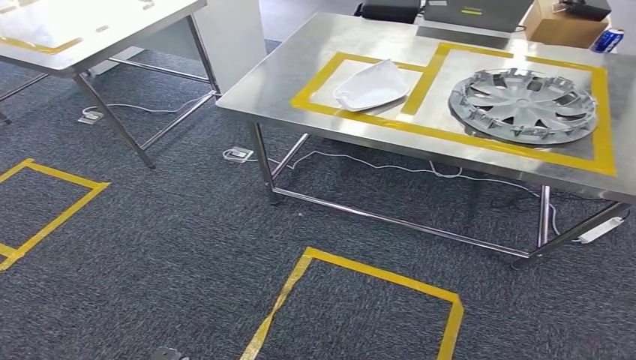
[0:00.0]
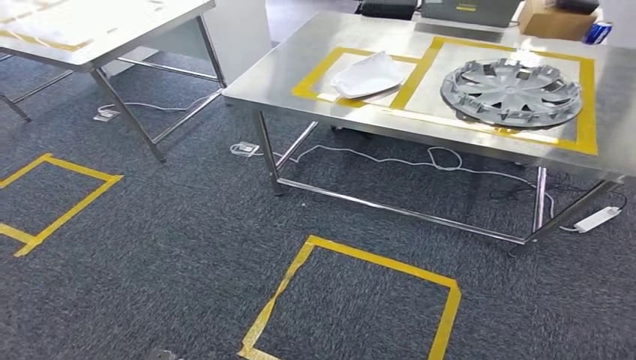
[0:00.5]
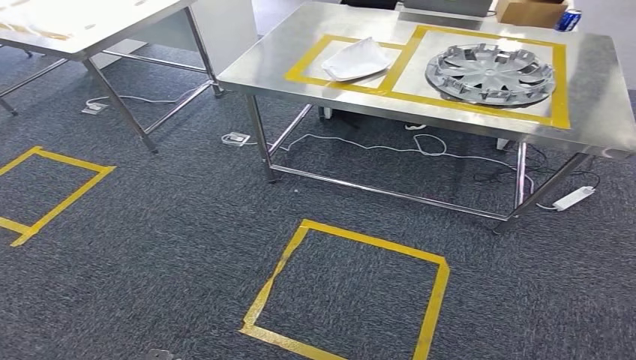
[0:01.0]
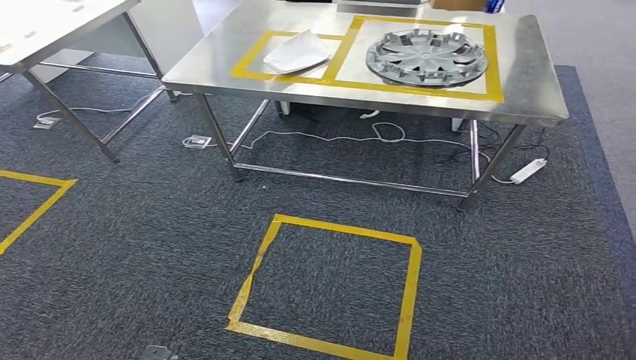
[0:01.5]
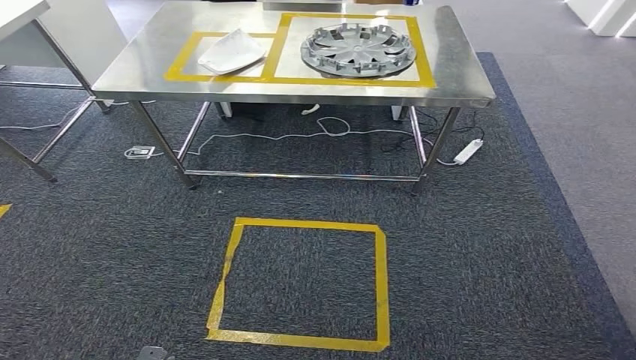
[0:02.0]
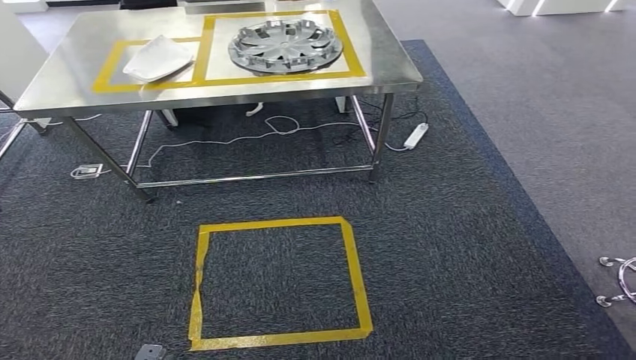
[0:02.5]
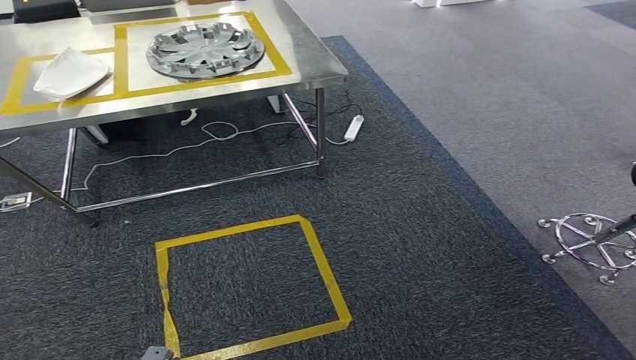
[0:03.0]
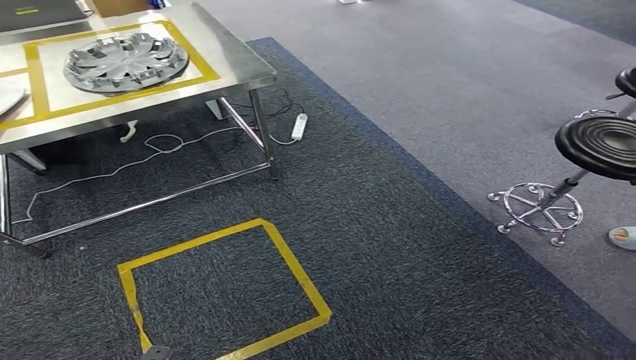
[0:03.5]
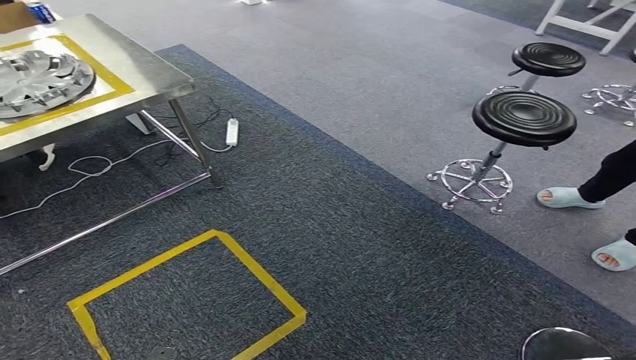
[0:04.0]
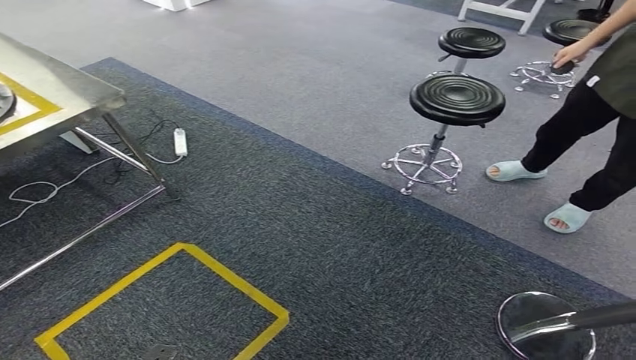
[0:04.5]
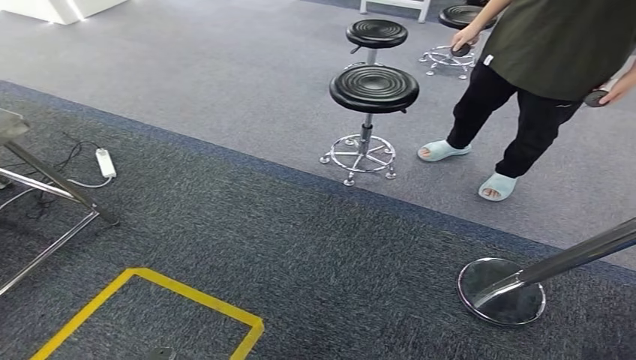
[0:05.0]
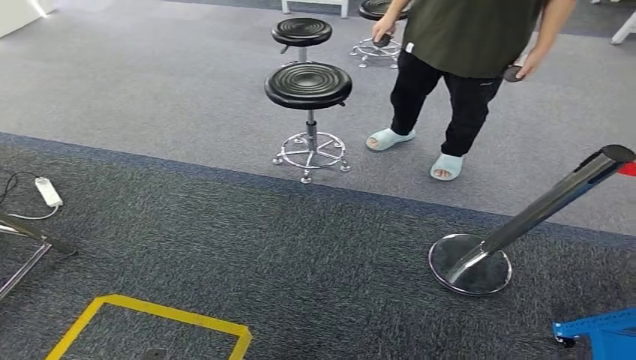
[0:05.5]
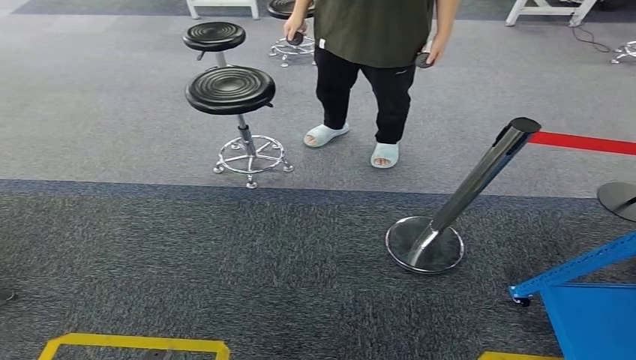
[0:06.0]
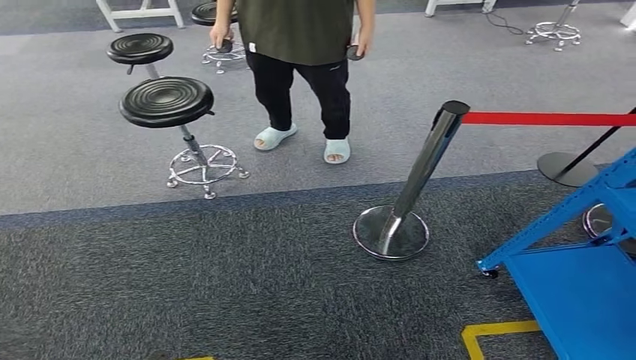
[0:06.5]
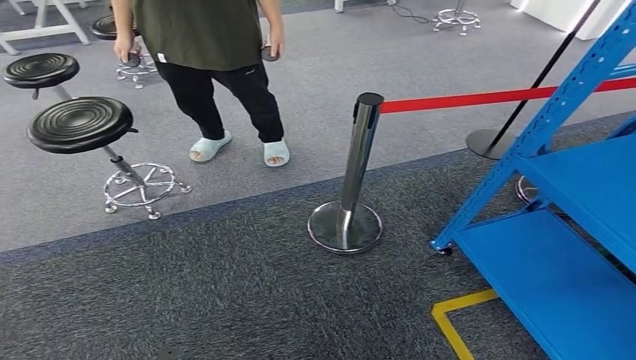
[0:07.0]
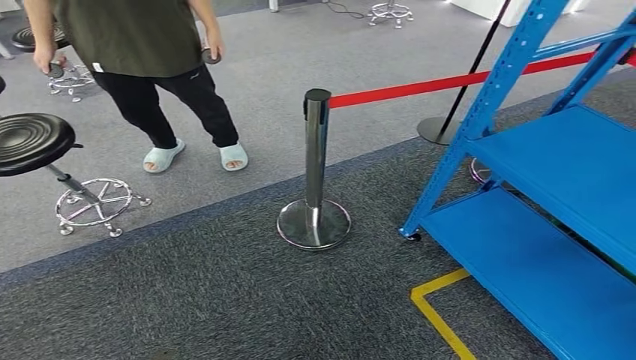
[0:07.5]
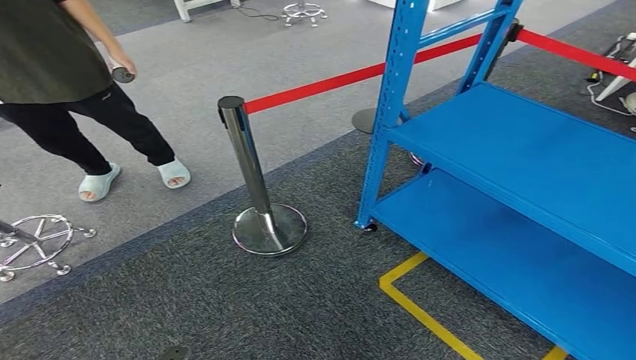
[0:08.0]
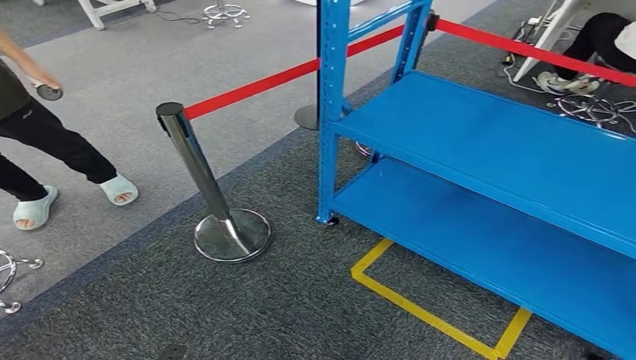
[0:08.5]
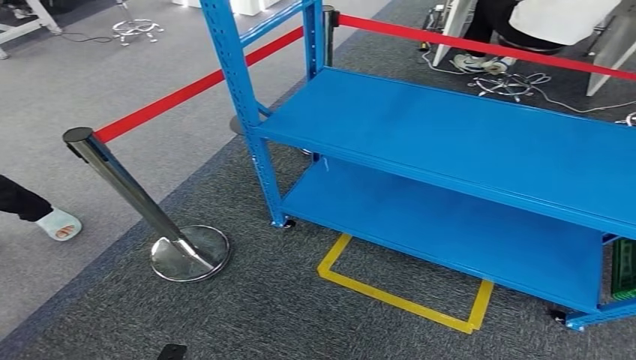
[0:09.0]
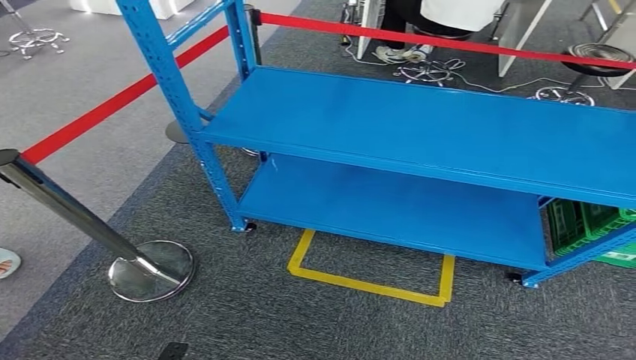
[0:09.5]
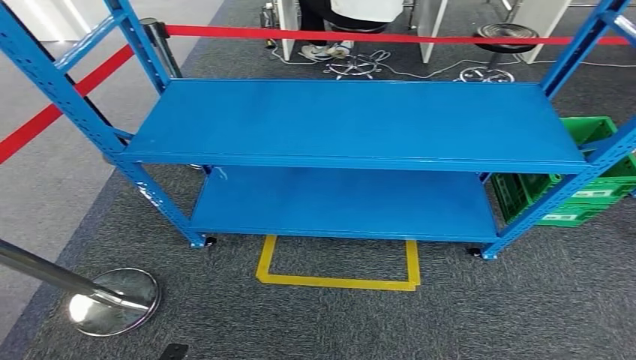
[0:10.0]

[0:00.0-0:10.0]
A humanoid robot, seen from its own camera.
Step, 0:00.0 to 0:10.0: Return to the initial position at the workbench.
